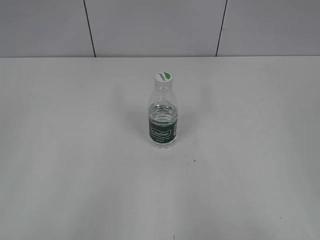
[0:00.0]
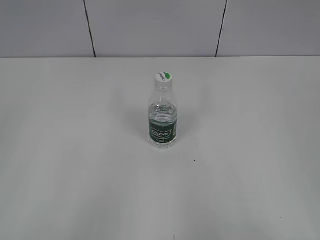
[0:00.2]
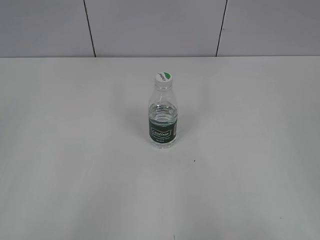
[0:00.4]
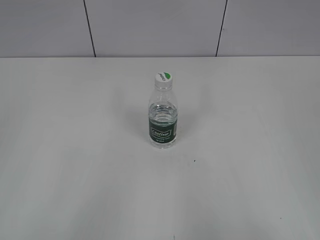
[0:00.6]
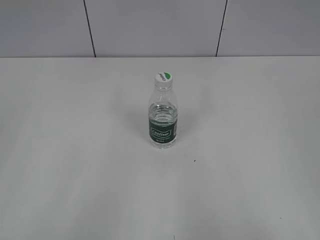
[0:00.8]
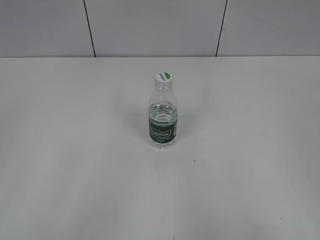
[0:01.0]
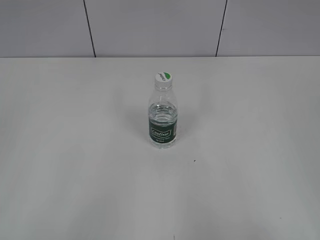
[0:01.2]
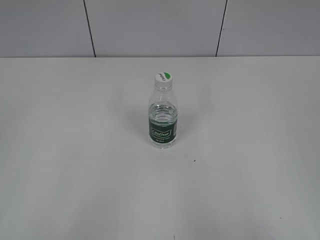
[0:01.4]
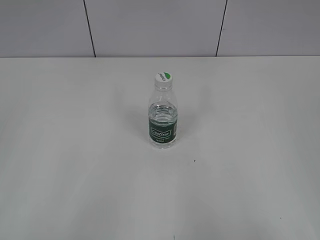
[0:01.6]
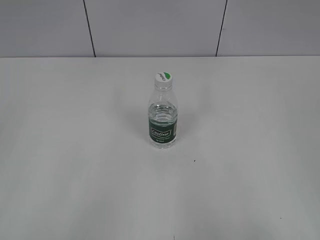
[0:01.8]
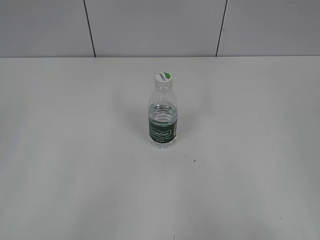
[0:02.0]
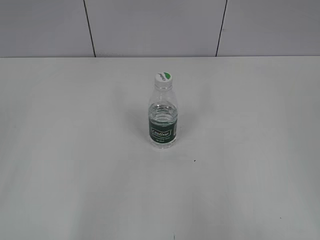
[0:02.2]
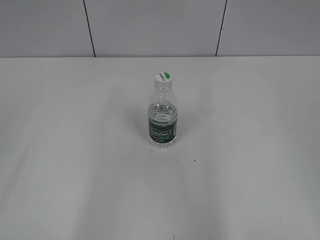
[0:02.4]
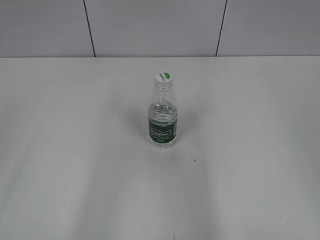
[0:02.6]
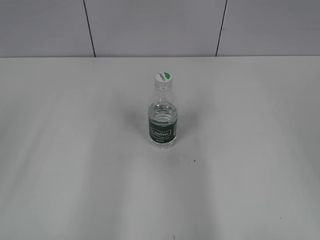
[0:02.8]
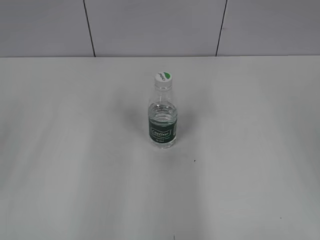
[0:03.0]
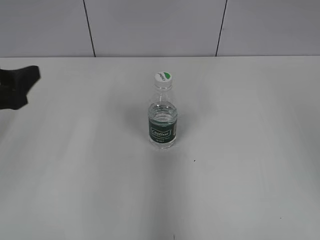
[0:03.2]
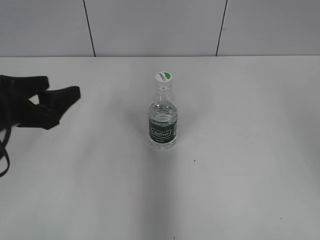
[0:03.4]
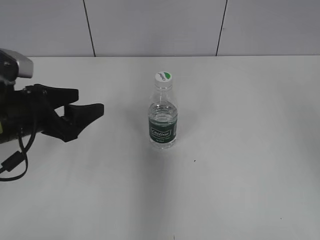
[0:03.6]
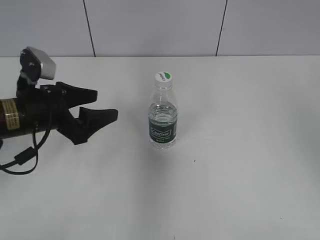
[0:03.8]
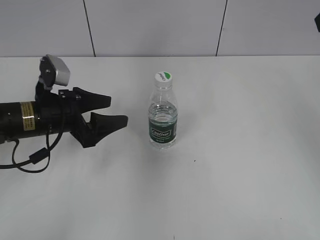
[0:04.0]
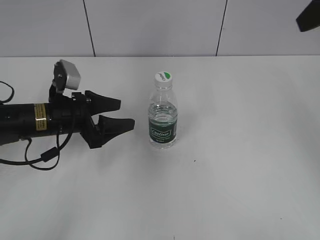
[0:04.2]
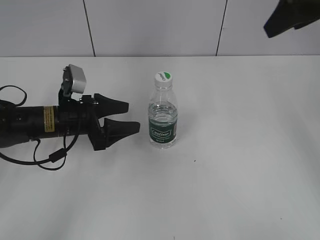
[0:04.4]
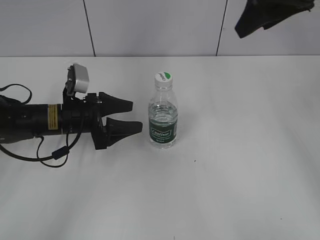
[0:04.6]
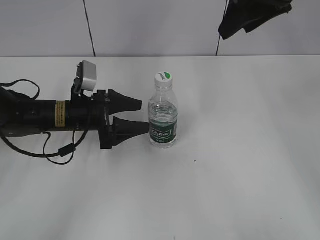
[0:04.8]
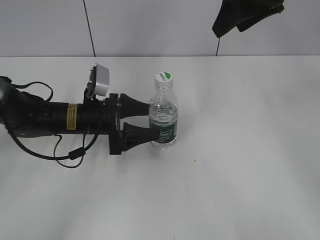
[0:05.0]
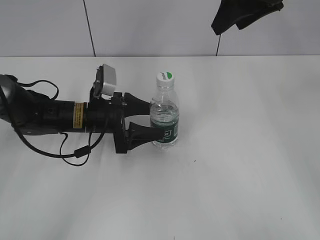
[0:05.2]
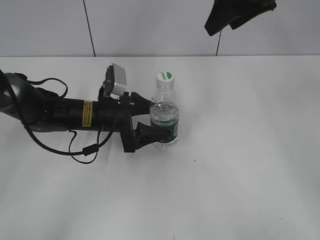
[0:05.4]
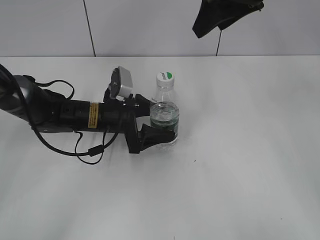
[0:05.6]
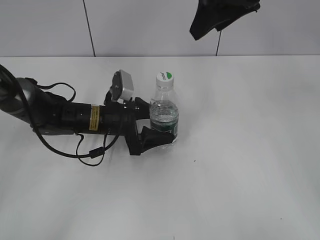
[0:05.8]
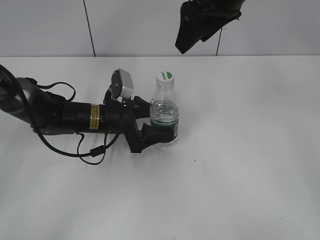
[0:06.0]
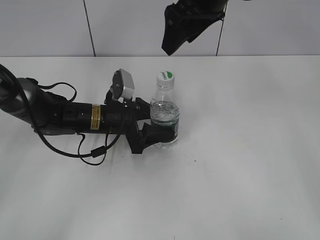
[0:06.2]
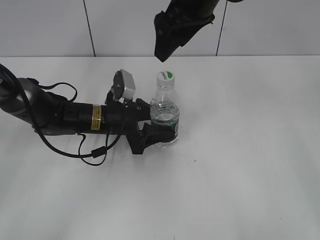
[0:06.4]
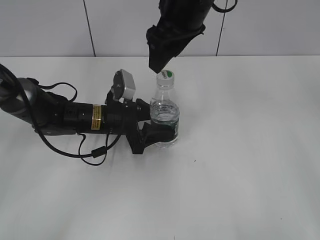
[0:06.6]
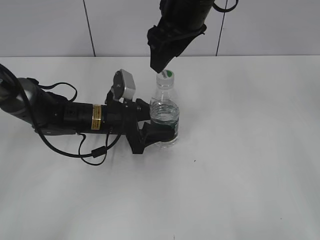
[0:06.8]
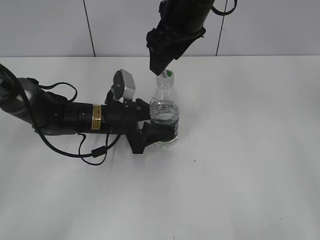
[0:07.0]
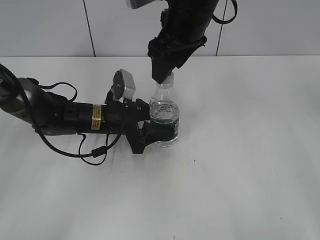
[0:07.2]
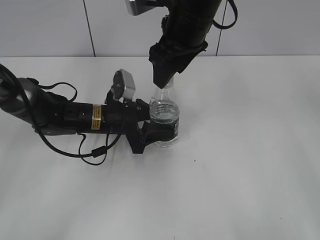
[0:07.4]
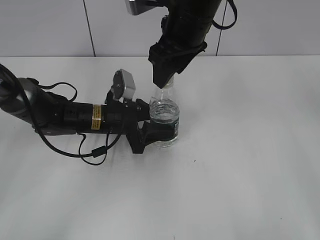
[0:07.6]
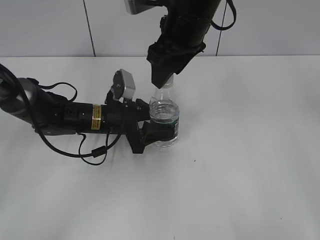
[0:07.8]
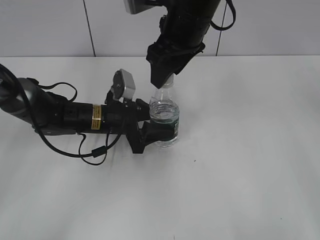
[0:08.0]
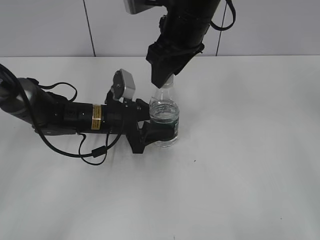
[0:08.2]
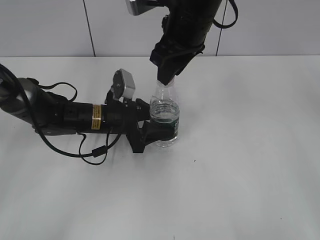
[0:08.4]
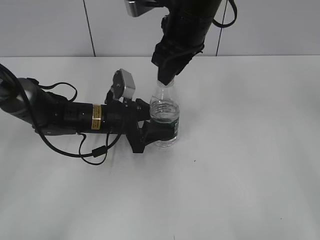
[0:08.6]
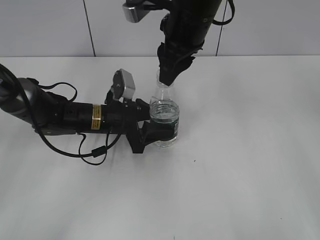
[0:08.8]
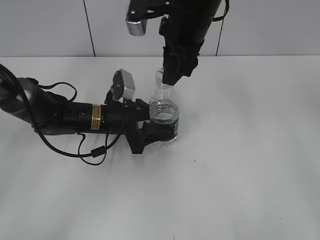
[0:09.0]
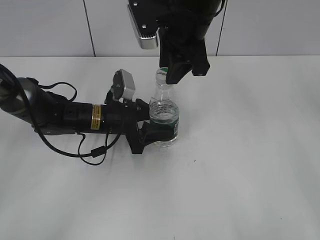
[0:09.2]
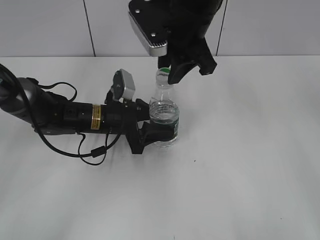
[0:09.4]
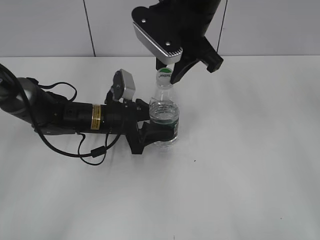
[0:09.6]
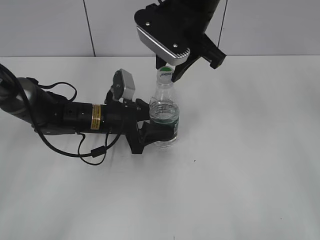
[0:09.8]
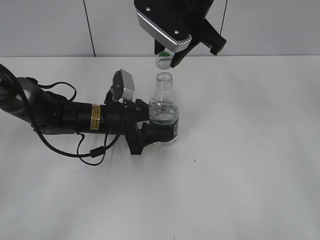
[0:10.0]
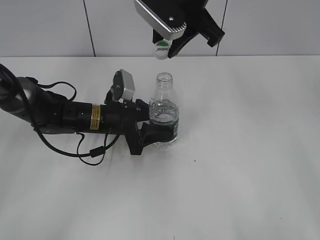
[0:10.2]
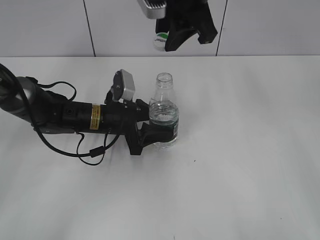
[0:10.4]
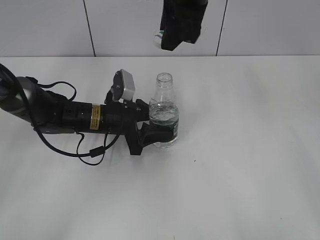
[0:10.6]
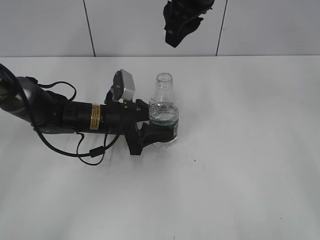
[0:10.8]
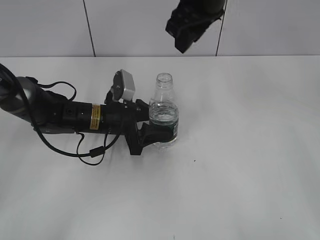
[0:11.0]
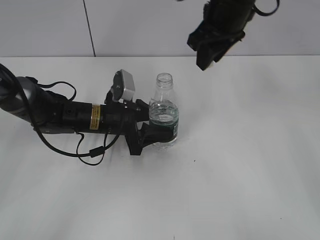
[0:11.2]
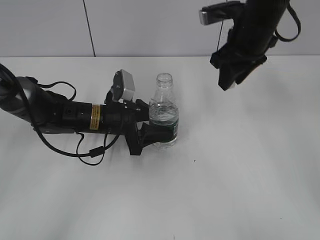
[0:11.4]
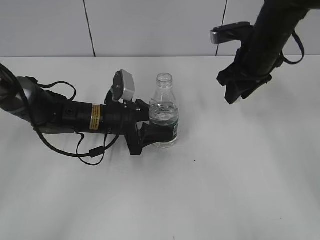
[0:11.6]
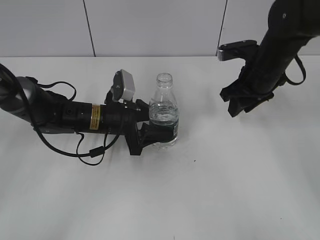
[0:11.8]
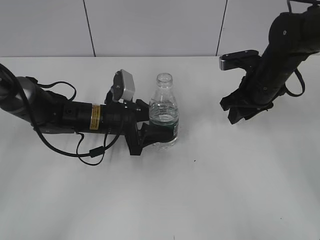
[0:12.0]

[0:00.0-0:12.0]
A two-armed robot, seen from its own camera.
Step, 0:00.0 to 0:06.0: Grasp the bottle and move it to the center of the table with the left gripper.
Step, 0:06.4 to 0:10.0: Unscrew the bottle cap with the right gripper while holding the bottle with the left gripper.
0:01.6 to 0:03.0: The left gripper is displaced forward by approximately 15 cm, while the right gripper is displaced forward and upward by approximately 15 cm.
0:03.0 to 0:04.4: The right gripper travels forward by roughly 20 cm. The left gripper is displaced downward, forward and to the right by approximately 25 cm.
0:04.4 to 0:06.0: The left gripper heads to the right, covering approximately 5 cm; the right gripper moves to the left and forward, roughly 15 cm.
0:06.0 to 0:07.6: The left gripper closes its fingers; the right gripper travels to the left and downward by approximately 10 cm.
0:07.6 to 0:09.0: The right gripper closes its fingers.
0:10.4 to 0:12.0: The right gripper travels downward and to the right by some 20 cm.

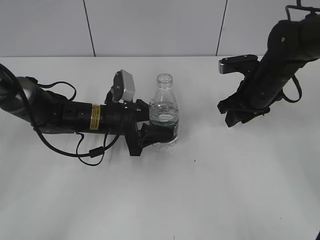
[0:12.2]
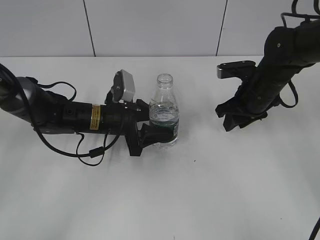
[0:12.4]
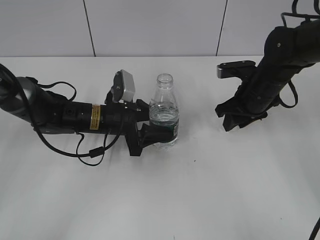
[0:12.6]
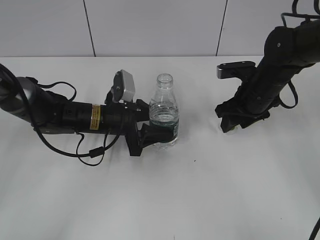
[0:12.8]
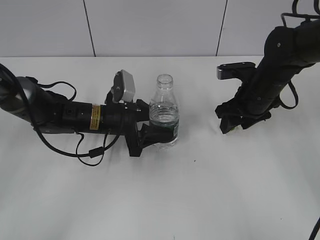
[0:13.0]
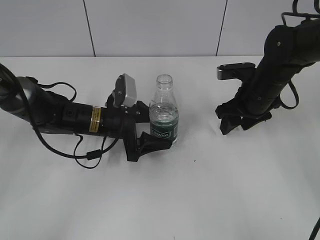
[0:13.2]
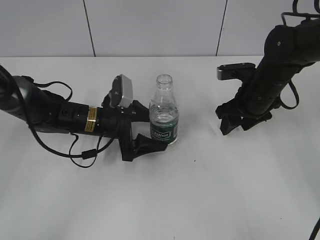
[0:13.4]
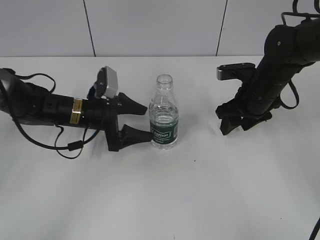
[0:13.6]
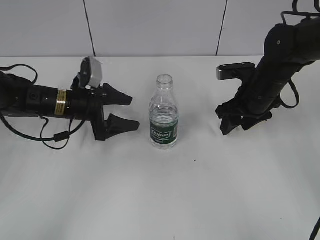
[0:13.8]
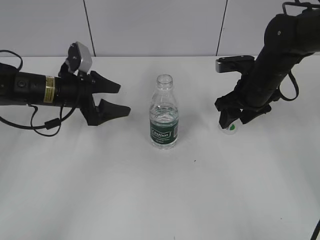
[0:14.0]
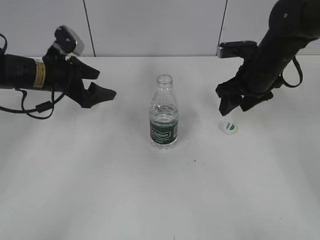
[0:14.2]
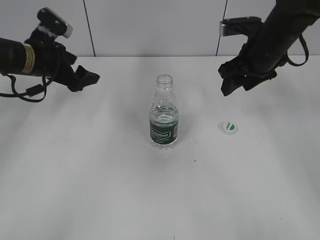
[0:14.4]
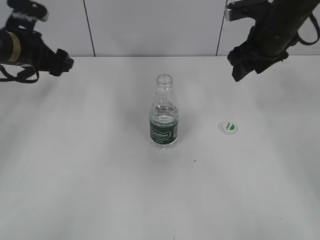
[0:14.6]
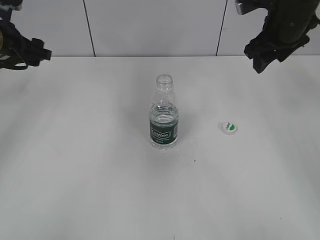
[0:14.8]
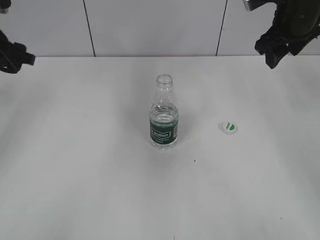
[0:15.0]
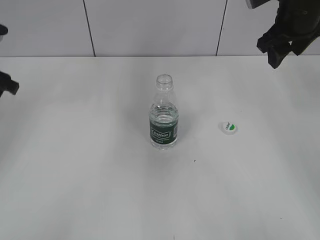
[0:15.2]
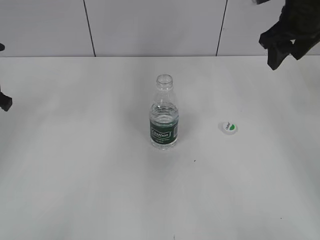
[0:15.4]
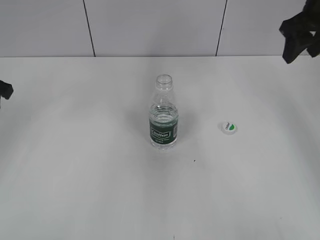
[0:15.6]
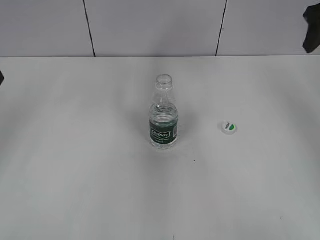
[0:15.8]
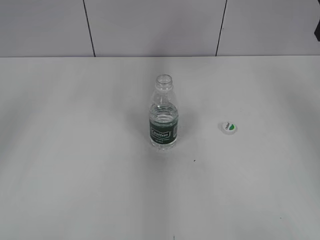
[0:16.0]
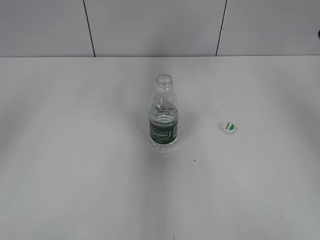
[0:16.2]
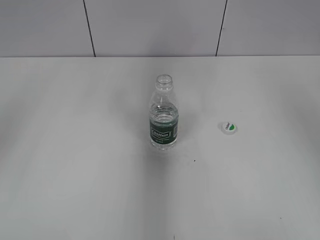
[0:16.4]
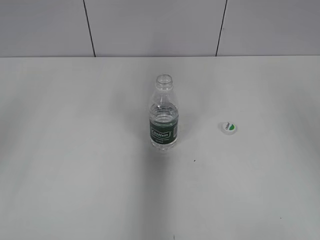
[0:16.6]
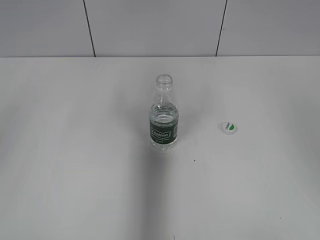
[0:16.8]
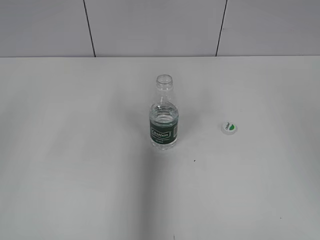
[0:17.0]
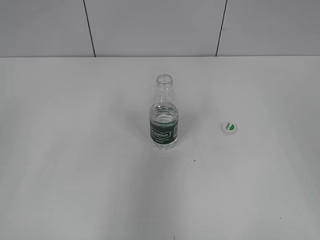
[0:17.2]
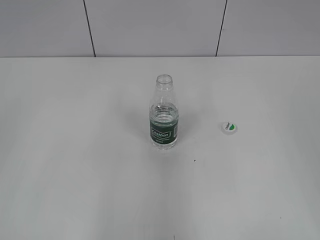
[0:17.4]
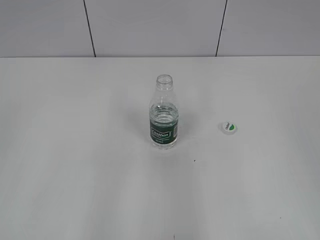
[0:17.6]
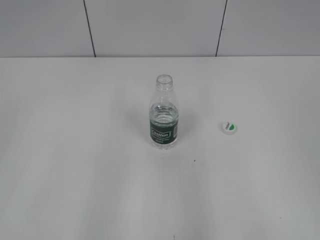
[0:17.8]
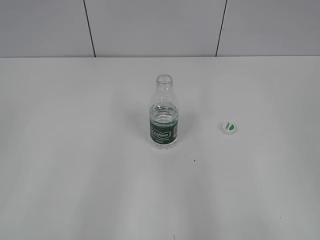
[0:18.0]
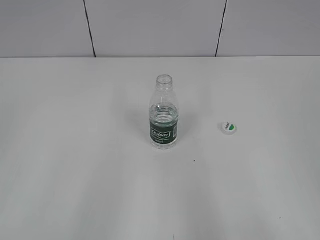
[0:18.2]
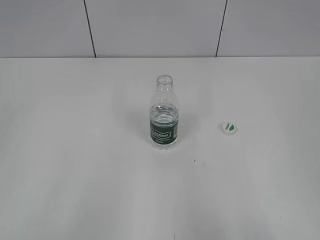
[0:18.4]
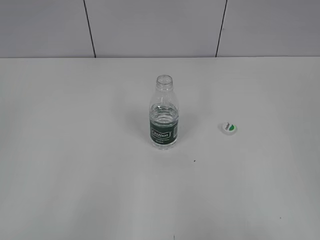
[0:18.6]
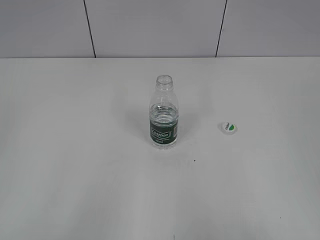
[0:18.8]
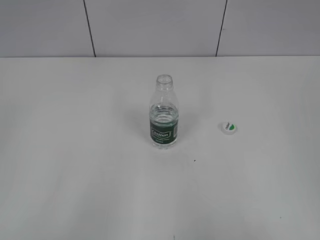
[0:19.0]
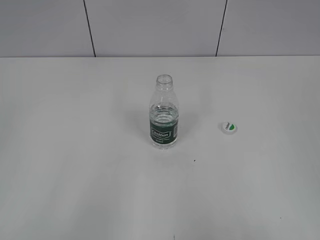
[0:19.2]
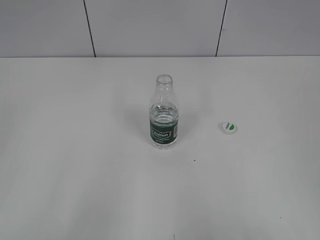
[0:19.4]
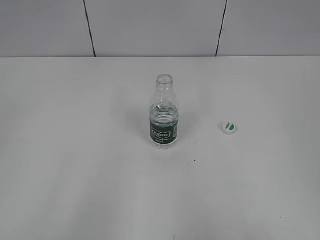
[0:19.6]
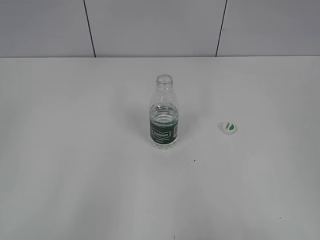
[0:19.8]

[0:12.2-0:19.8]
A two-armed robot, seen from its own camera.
Step, 0:13.2 to 0:13.6: Place the bottle on the table with the left gripper.
0:12.2 to 0:13.8: The left gripper goes approximately 5 cm to the left, and opens up; the right gripper opens its fingers.
0:13.8 to 0:15.2: The right gripper shifts about 15 cm upward. The left gripper shifts approximately 20 cm to the left and upward, and closes.
0:15.2 to 0:16.8: The left gripper heads backward and upward, covering about 20 cm. The right gripper is displaced backward, to the right and upward by some 20 cm.
0:16.8 to 0:18.2: The two grippers go about 20 cm backward.

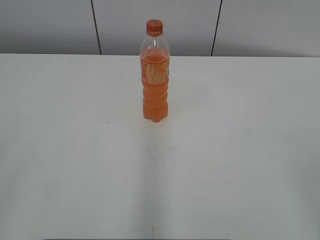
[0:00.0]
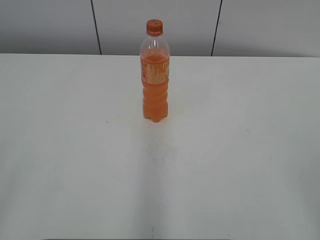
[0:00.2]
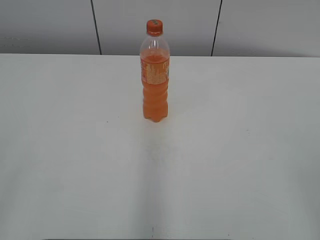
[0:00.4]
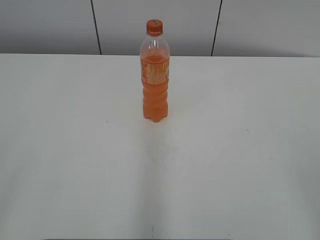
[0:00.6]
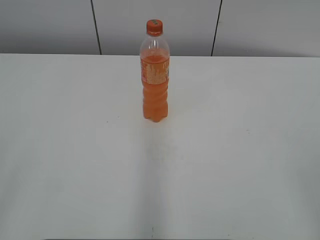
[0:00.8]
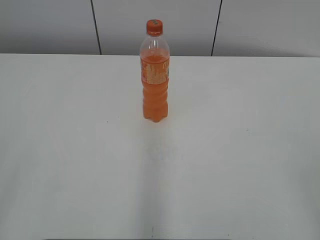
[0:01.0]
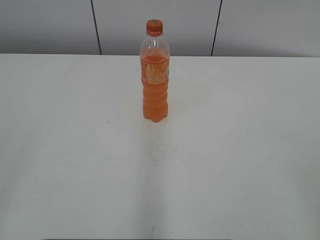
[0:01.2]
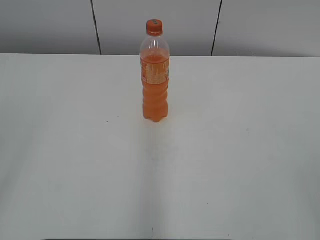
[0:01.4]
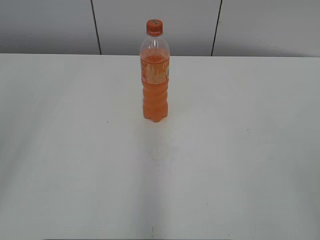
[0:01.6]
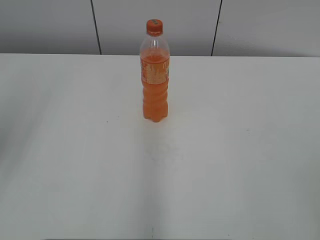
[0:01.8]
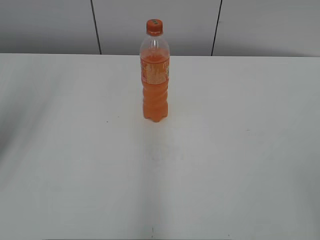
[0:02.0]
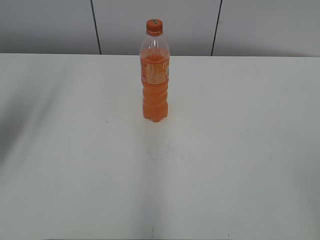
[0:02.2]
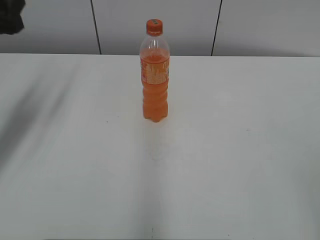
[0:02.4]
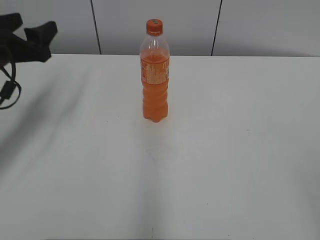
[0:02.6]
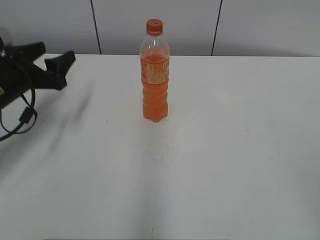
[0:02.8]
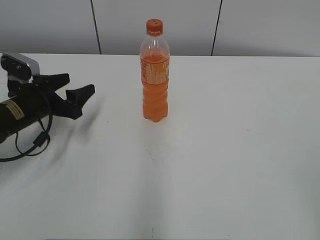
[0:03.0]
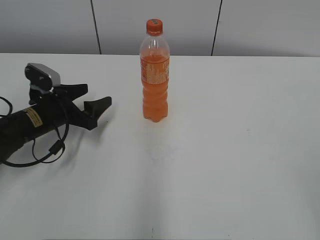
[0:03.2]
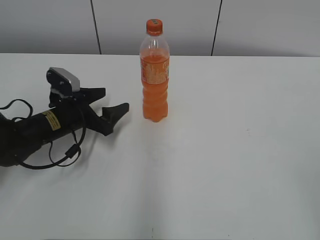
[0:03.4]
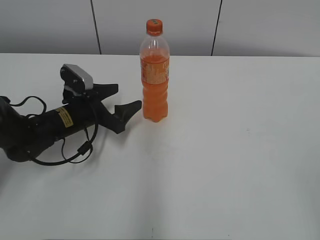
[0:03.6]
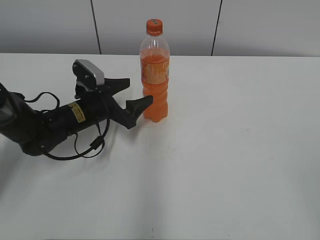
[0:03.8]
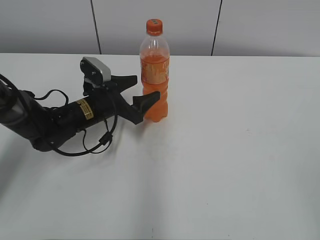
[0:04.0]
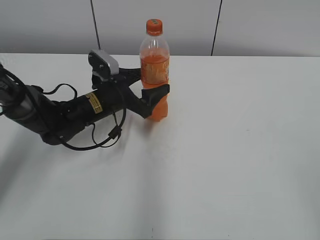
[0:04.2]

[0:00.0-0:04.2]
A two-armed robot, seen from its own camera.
0:01.4 to 0:02.8: The left gripper moves forward and downward, some 35 cm.
0:02.8 to 0:04.2: The left gripper shifts approximately 15 cm to the right and downward.
